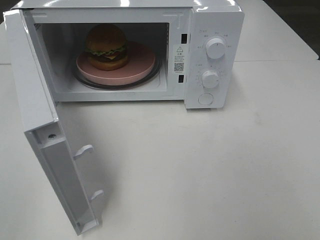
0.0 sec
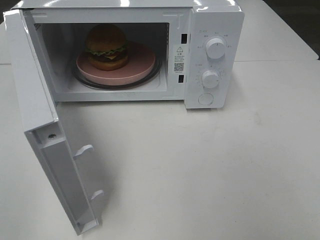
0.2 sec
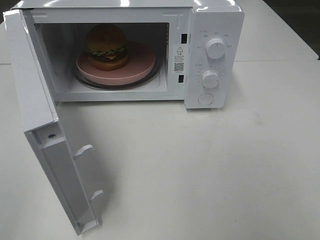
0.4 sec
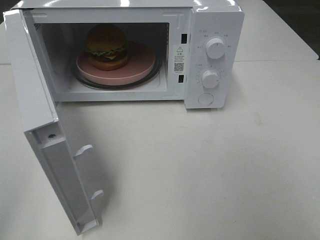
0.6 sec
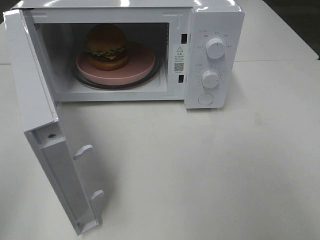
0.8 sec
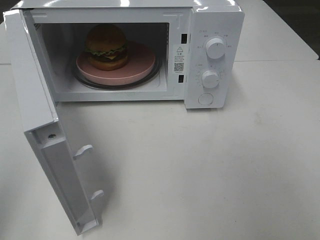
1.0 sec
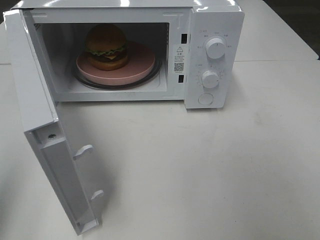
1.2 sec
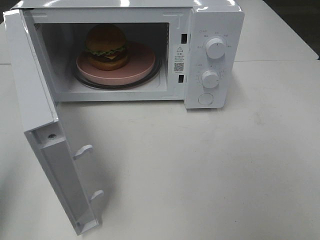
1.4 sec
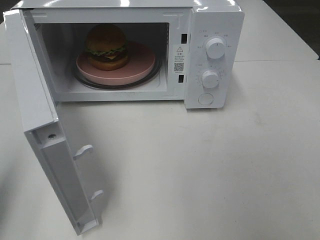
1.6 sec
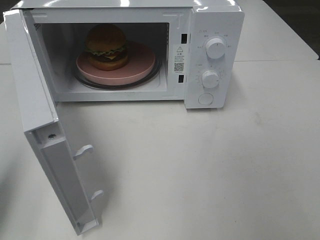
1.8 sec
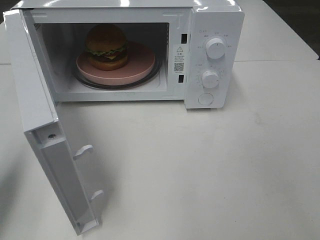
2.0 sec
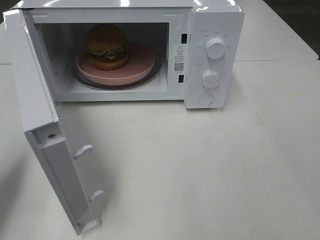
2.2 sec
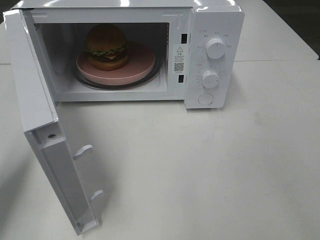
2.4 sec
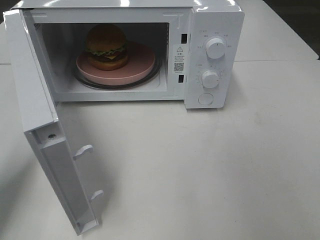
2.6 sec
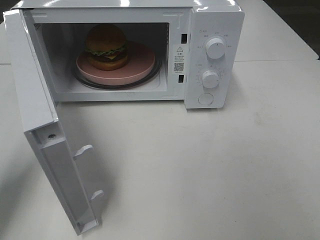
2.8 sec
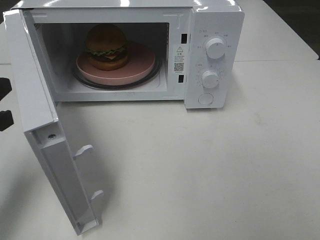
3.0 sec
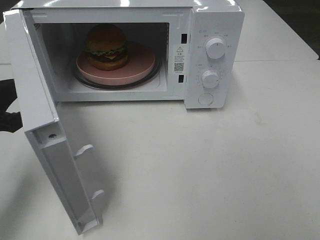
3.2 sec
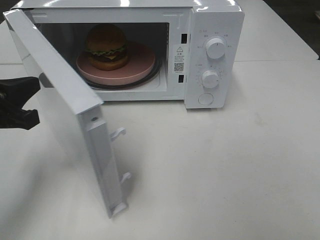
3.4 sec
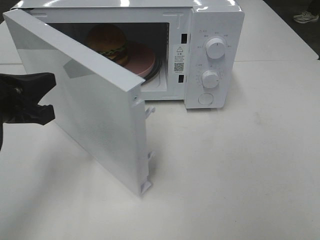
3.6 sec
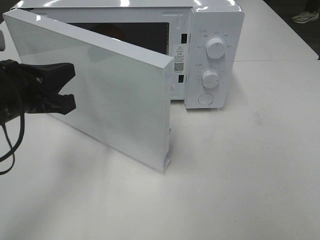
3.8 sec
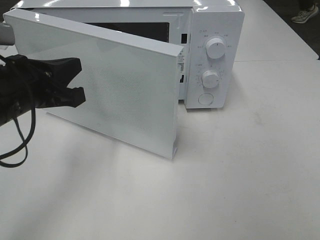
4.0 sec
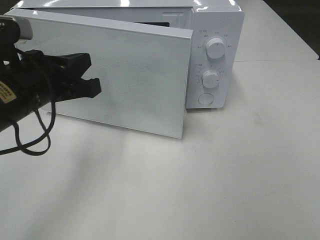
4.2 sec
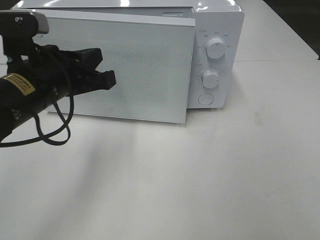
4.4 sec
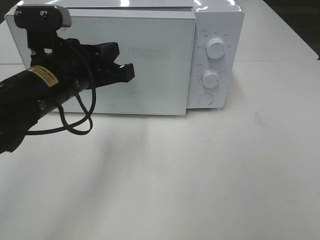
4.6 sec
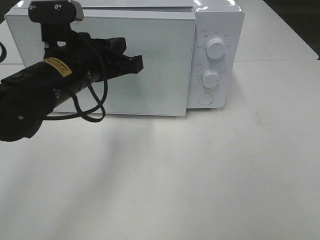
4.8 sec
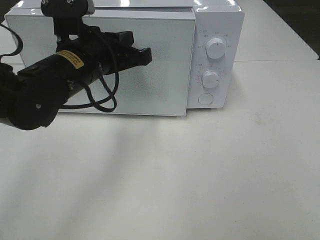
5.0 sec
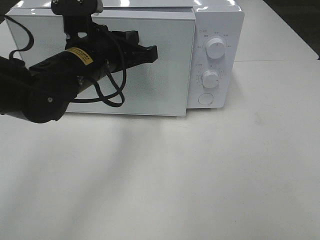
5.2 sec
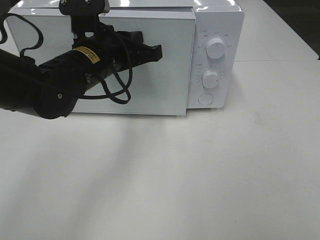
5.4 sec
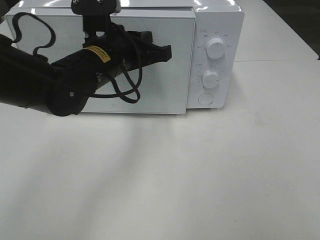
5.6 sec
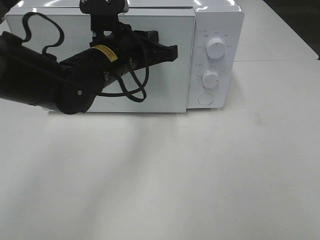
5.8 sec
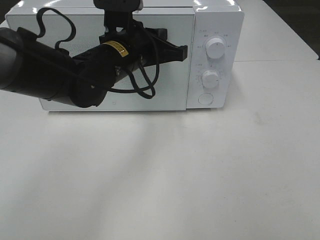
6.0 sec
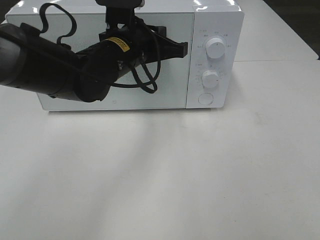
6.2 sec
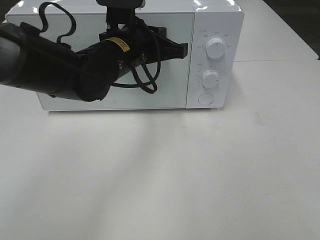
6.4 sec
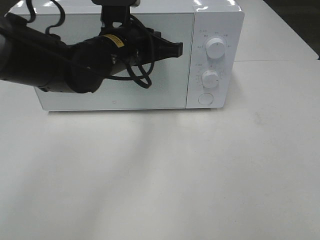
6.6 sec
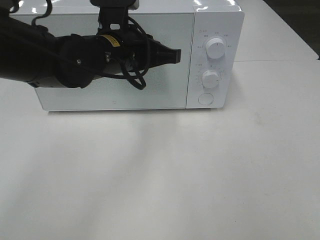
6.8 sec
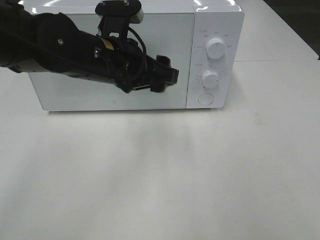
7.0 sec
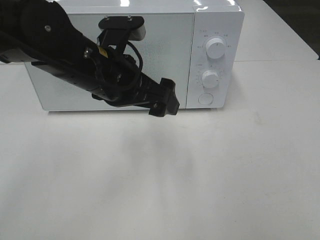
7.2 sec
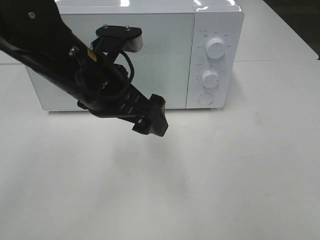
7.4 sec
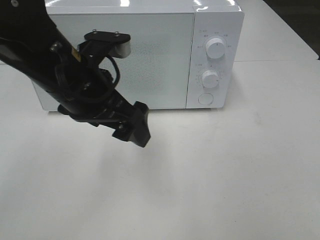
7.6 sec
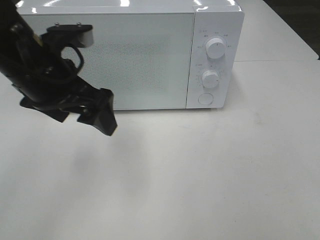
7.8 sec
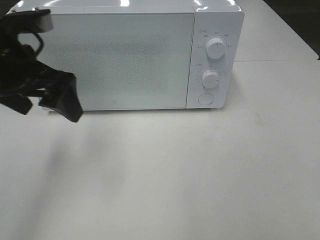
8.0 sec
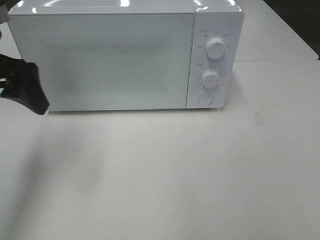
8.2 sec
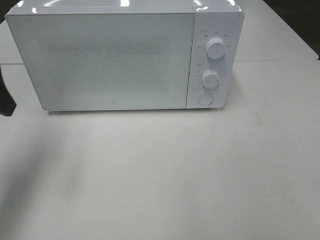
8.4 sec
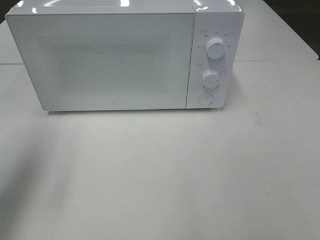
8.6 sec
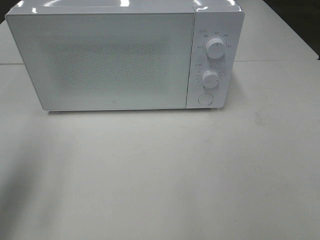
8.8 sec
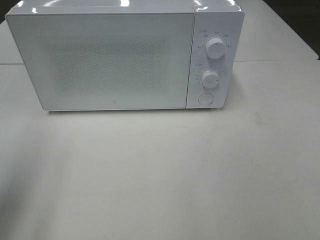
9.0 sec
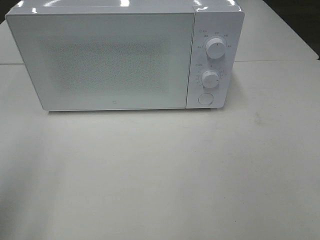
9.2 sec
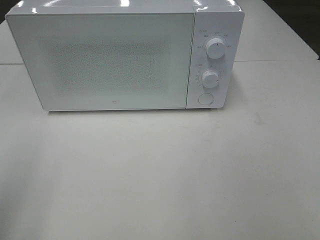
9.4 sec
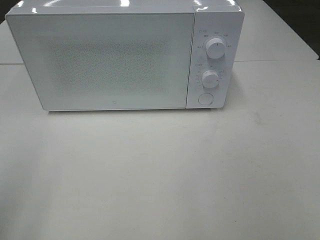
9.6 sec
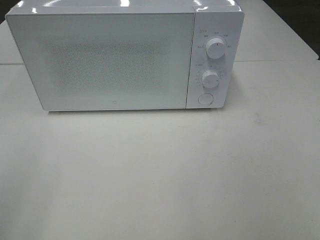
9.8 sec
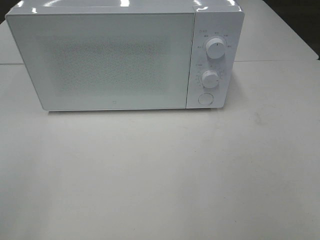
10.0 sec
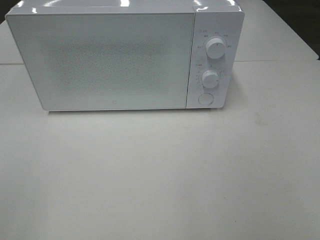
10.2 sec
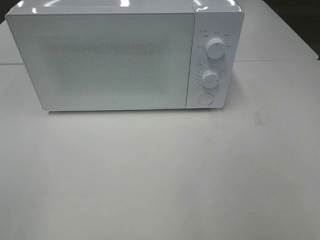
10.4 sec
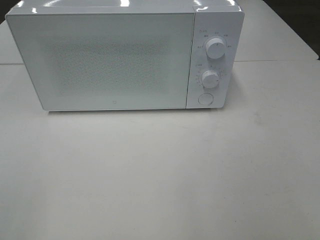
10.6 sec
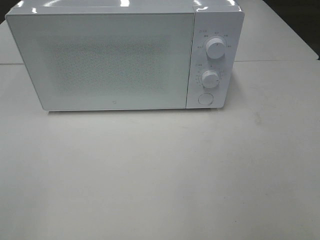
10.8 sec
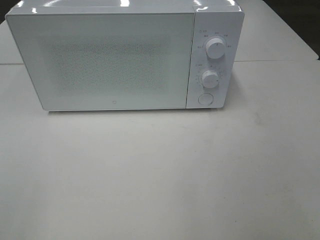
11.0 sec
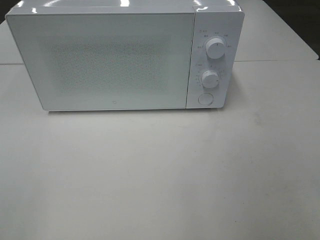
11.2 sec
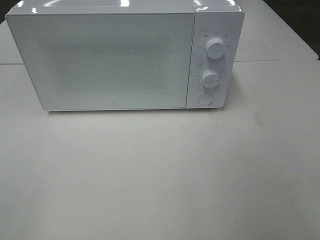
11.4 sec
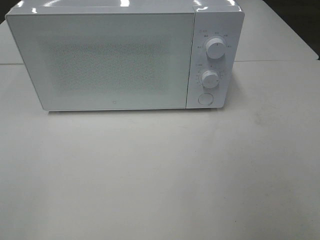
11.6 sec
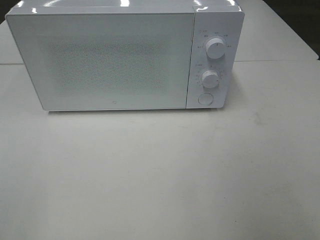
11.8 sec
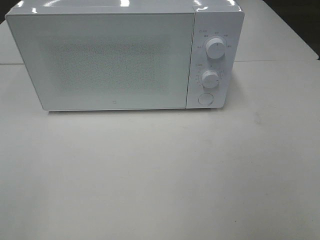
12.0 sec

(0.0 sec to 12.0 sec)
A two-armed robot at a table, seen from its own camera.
Task of the whole recording: Heat the burger.
Step, 0.0 sec - 6.8 sec: Left hand: close the microwave door.
0.0 sec - 1.6 sec: The left gripper heads forward, covering approximately 15 cm, and closes its fingers.
1.6 sec - 3.0 sec: The left gripper travels forward and downward by some 10 cm.
3.0 sec - 4.4 sec: The left gripper moves to the right, roughly 15 cm.
4.4 sec - 6.0 sec: The left gripper shifts approximately 15 cm to the right and forward.
6.0 sec - 7.6 sec: The left gripper shifts about 10 cm backward and to the left, and opens.
7.6 sec - 9.0 sec: The left gripper shifts some 25 cm to the left and backward.
9.0 sec - 10.4 sec: The left gripper moves backward, approximately 15 cm.
10.4 sec - 12.0 sec: Both grippers stay about where they are.

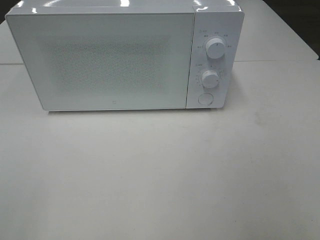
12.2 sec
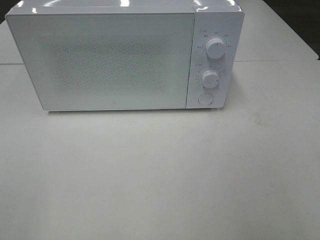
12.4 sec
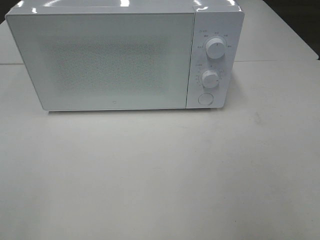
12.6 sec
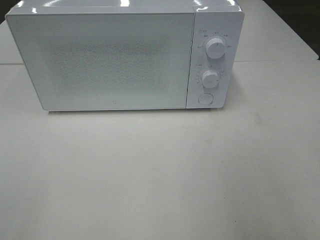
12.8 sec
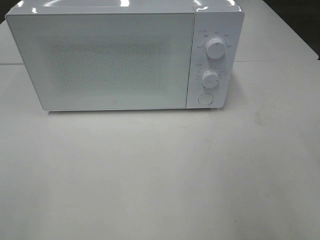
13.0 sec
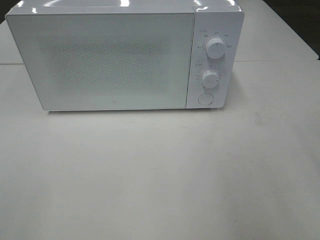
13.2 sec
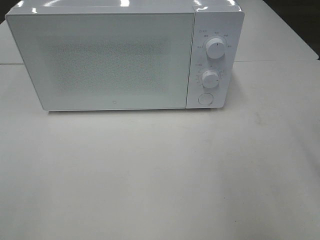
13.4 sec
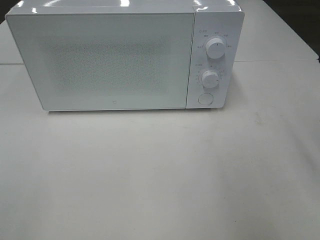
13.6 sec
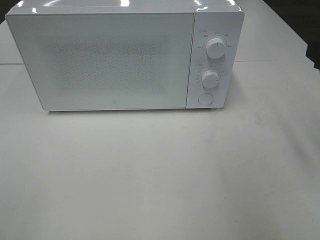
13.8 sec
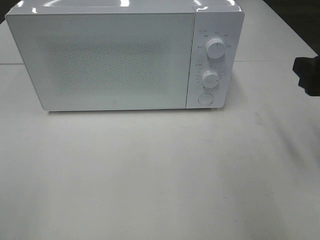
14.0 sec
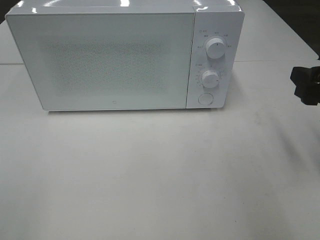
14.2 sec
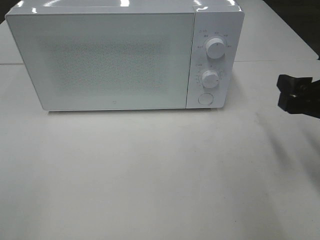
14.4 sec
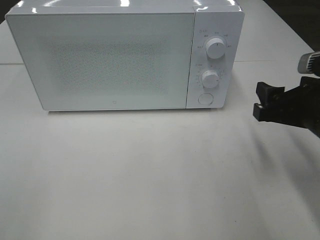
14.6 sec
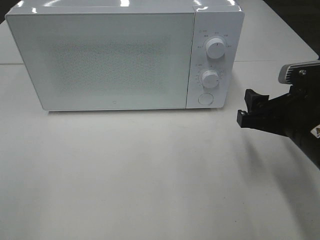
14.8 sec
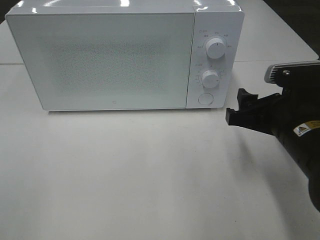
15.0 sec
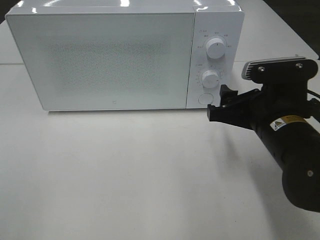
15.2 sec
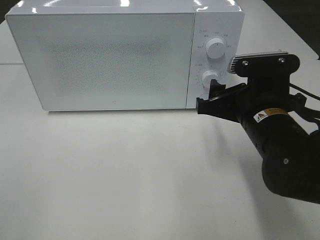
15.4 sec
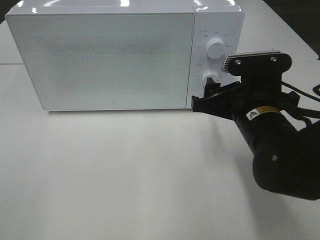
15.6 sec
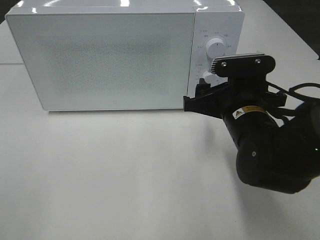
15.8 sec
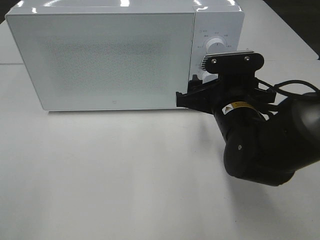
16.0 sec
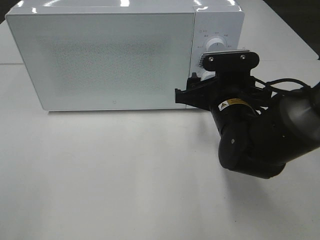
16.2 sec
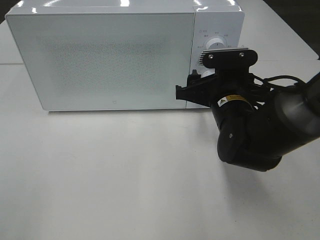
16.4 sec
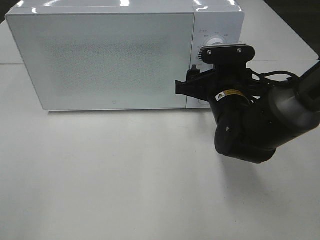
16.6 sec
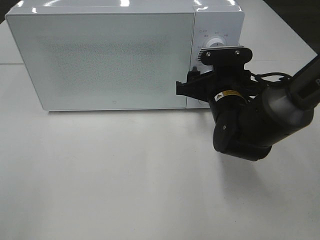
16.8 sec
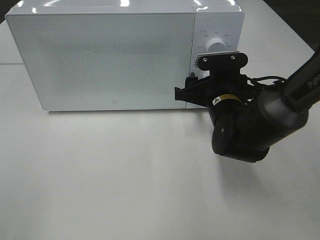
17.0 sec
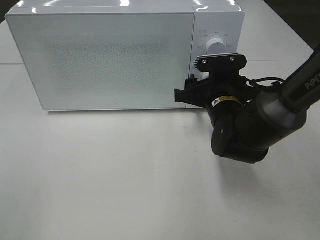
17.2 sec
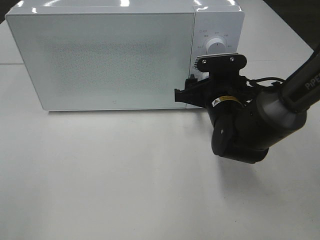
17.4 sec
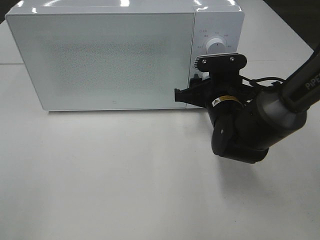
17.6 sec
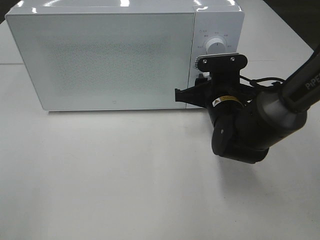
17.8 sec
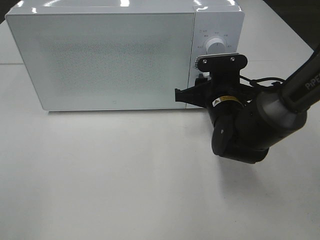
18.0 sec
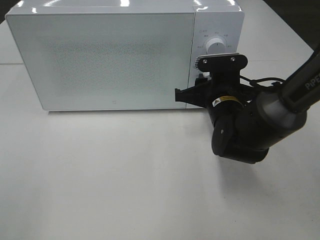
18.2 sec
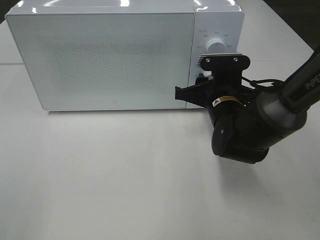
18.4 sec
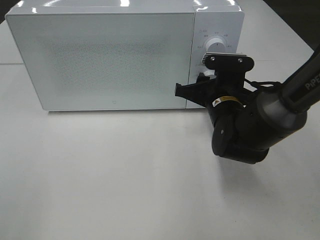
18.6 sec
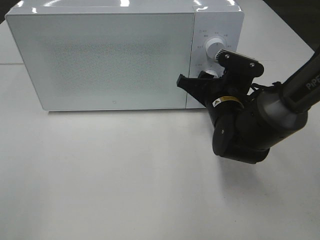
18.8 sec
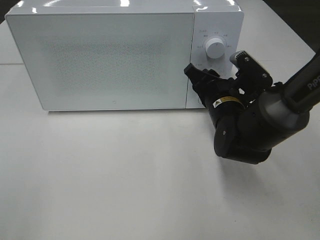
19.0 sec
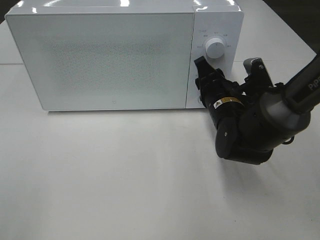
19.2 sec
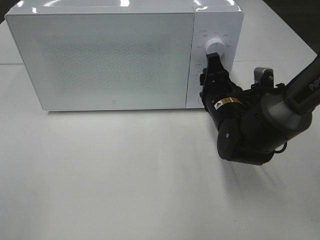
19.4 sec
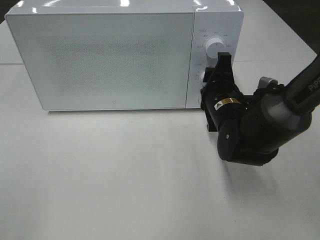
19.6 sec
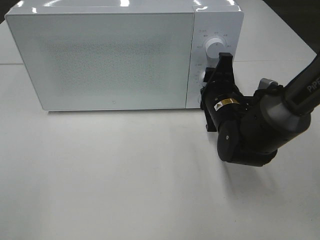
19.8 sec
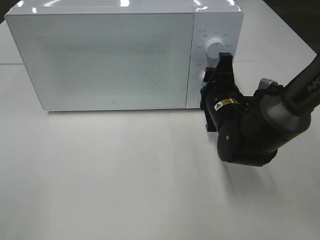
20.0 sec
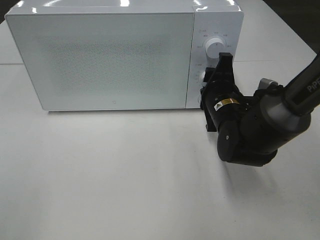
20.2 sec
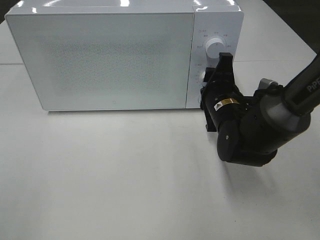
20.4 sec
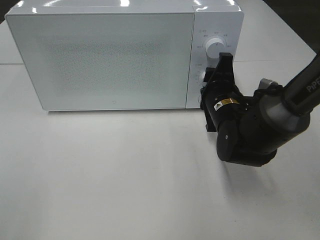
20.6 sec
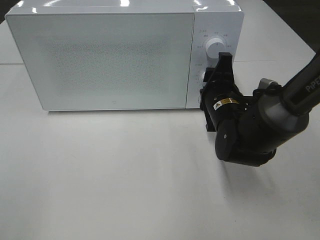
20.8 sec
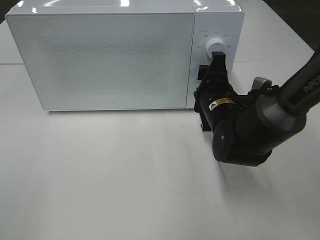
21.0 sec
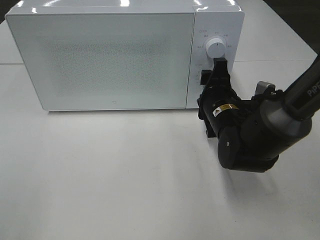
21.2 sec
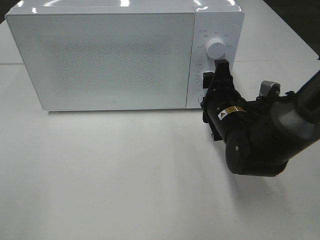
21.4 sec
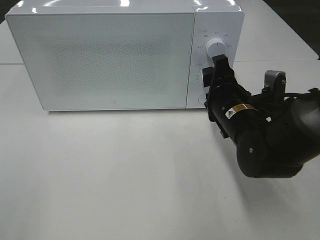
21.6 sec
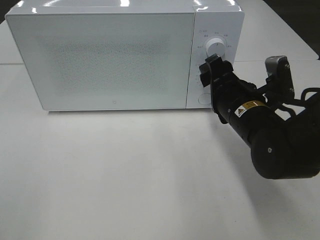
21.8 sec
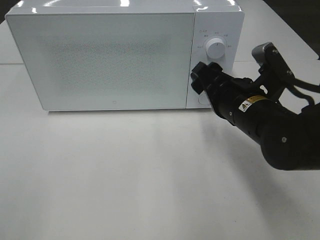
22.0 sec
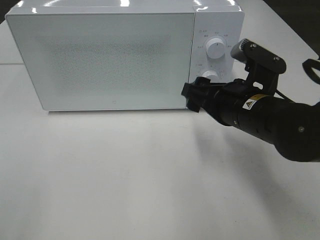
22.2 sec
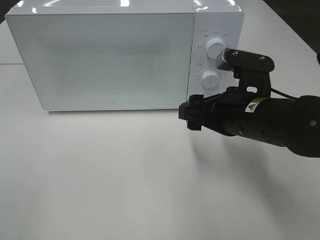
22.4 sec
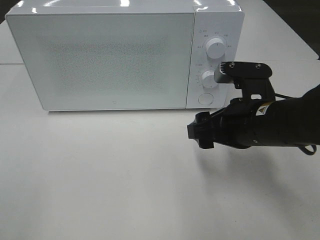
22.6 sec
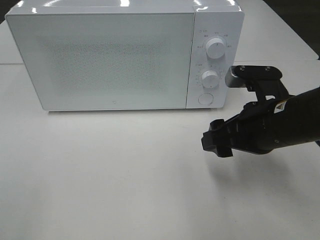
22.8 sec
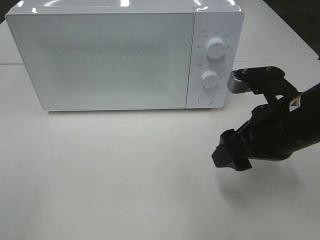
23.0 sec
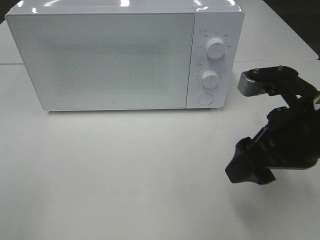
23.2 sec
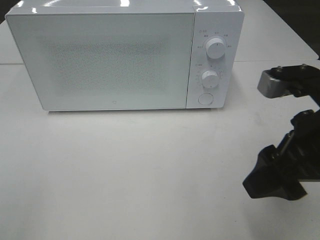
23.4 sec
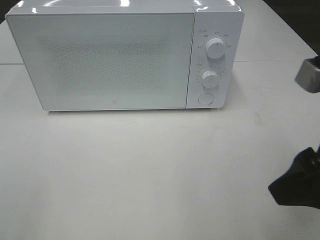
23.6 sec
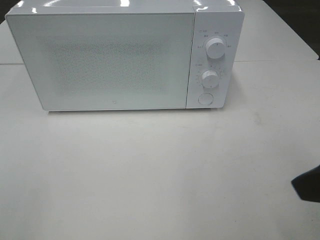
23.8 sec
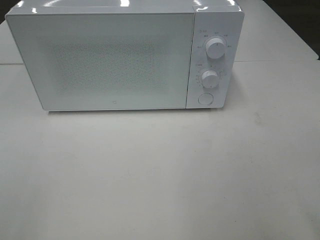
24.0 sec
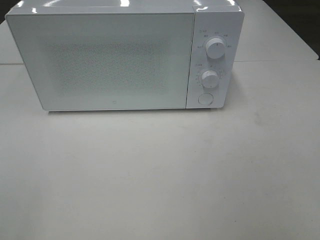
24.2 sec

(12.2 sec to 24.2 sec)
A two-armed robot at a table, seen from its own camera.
Task of the whole recording: Heat the burger.
Step, 12.2 sec - 21.0 sec: Right hand: twist timer button.
13.8 sec - 15.2 sec: The right gripper travels to the left and downward by about 15 cm.
15.2 sec - 16.6 sec: The right gripper is displaced forward by some 10 cm.
16.6 sec - 18.2 sec: The right gripper closes its fingers.
19.8 sec - 21.2 sec: Both grippers stay put.
21.2 sec - 22.6 sec: The right gripper goes some 10 cm backward and upward.
22.6 sec - 24.2 sec: The right gripper shifts approximately 25 cm backward, upward and to the right.
